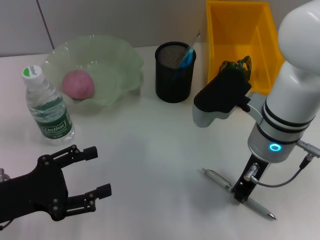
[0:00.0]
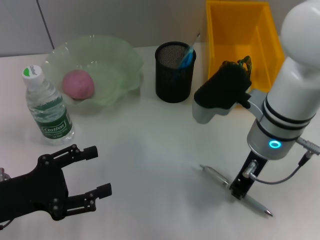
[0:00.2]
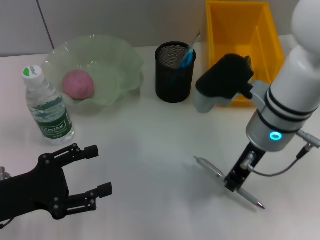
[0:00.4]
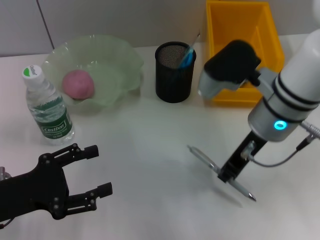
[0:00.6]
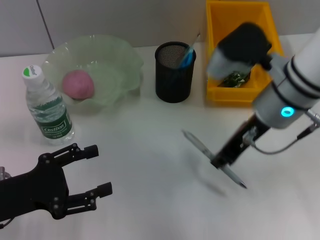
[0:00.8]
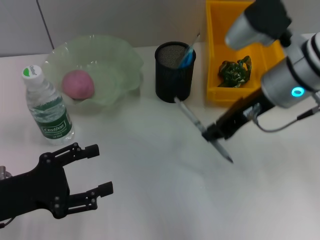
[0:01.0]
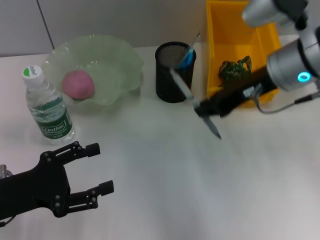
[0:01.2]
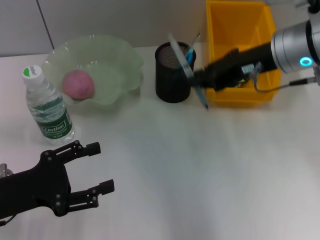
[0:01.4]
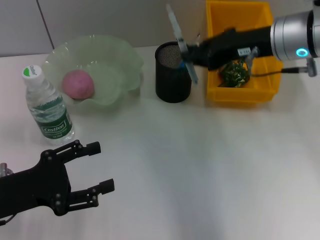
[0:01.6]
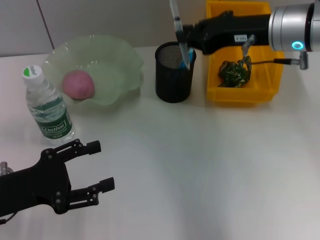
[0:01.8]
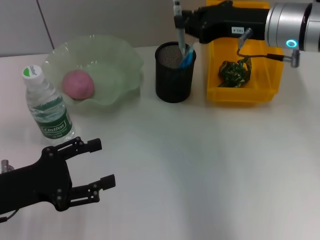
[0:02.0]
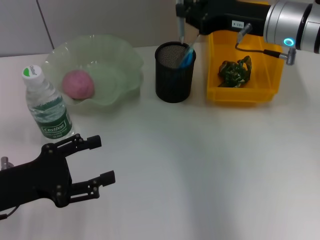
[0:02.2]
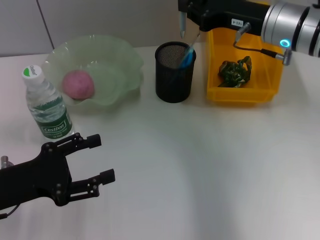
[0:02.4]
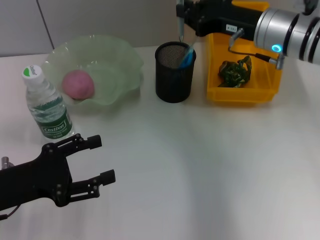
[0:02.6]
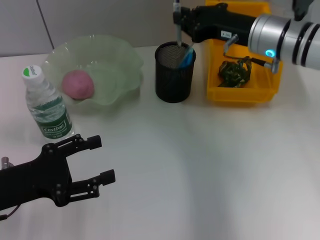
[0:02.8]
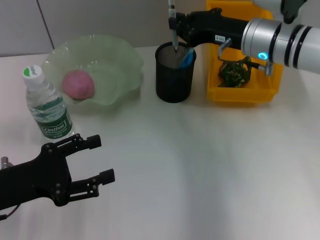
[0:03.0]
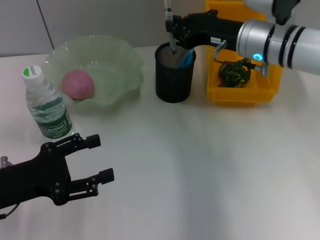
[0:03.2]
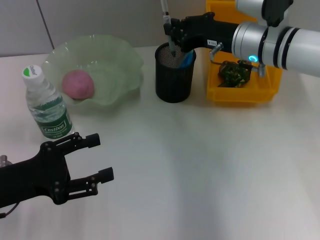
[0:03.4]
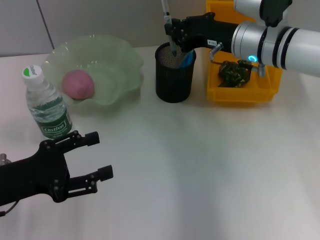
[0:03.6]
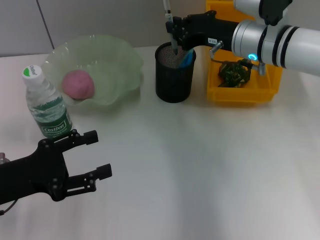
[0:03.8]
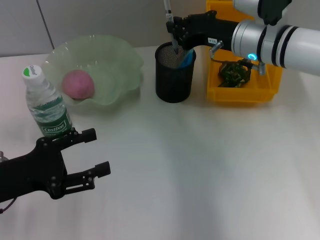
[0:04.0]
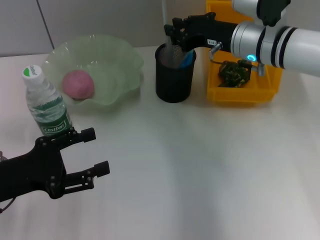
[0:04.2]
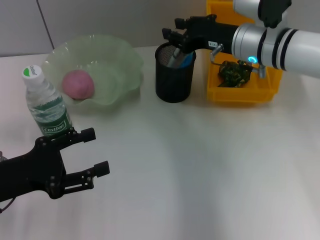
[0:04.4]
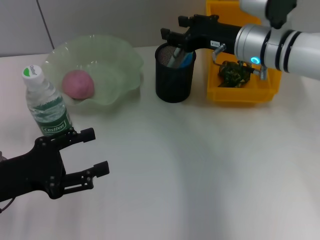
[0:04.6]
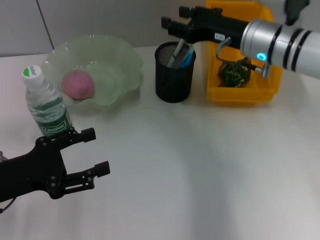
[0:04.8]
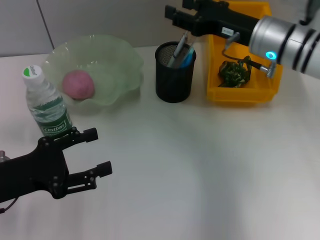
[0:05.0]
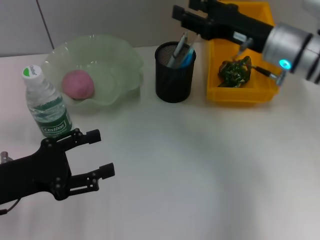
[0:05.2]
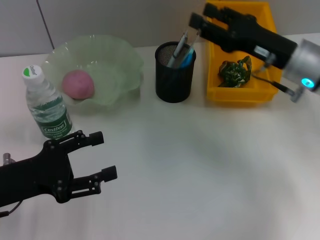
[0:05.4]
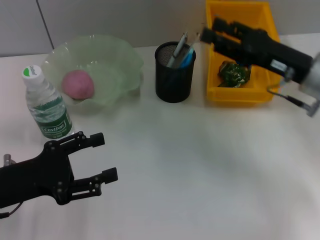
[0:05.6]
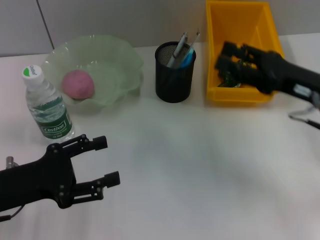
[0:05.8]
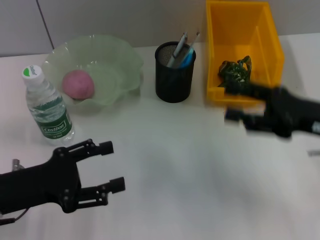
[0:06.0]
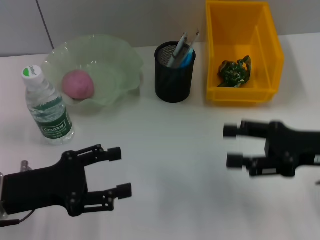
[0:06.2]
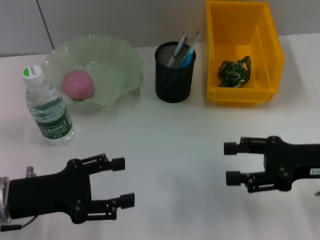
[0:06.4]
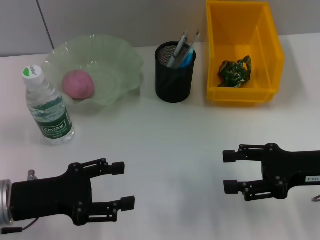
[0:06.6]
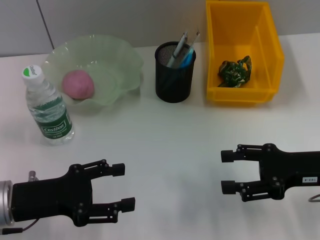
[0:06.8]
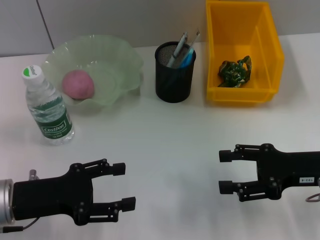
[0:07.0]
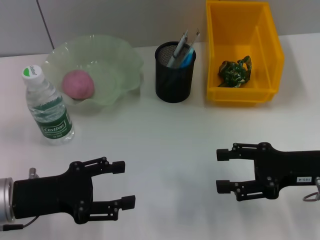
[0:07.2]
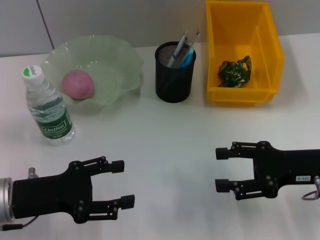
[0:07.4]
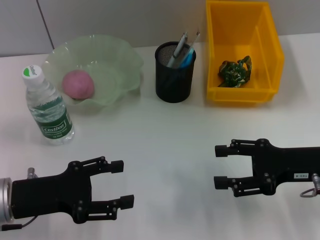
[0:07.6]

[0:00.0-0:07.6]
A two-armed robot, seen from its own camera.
Step, 0:00.2 to 0:04.8: Place the gray spring-action pen into the pen holder with the right hand.
0:00.0 to 0:01.6: The right gripper shifts about 10 cm upward, forward and to the right.
0:01.6 to 0:03.0: The right gripper goes about 5 cm downward.
0:03.0 to 0:04.6: The right gripper opens up.
0:04.6 to 0:06.0: The right gripper moves backward and to the right, some 20 cm, and opens.
